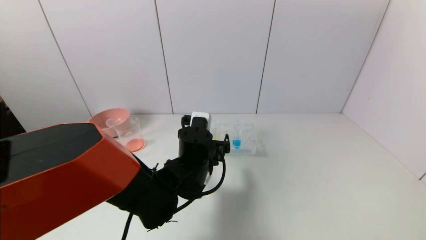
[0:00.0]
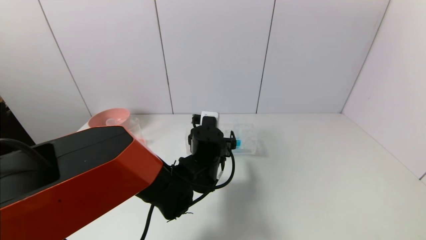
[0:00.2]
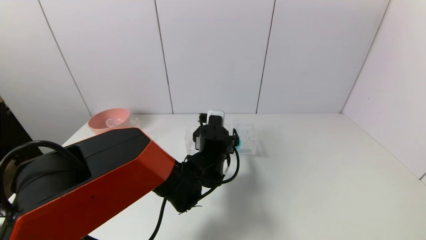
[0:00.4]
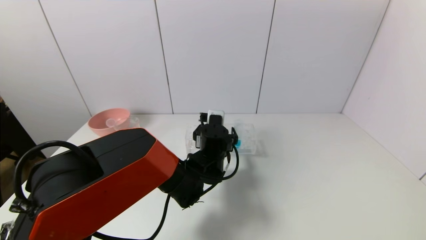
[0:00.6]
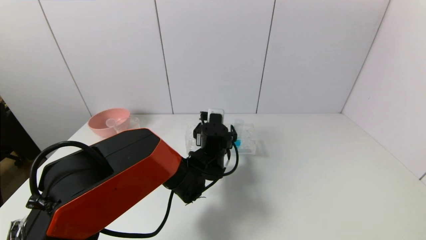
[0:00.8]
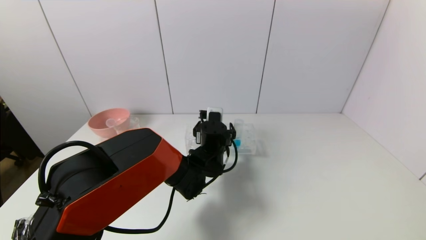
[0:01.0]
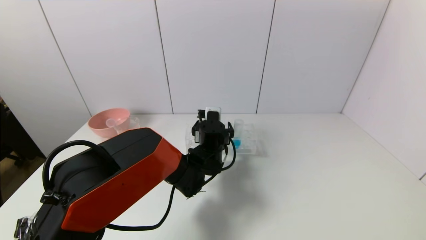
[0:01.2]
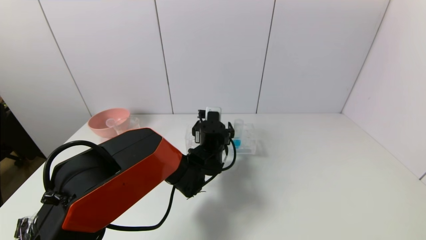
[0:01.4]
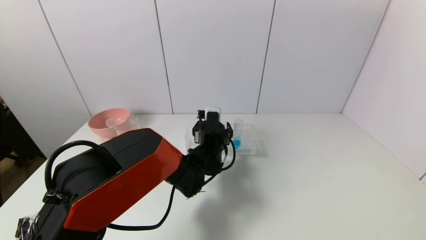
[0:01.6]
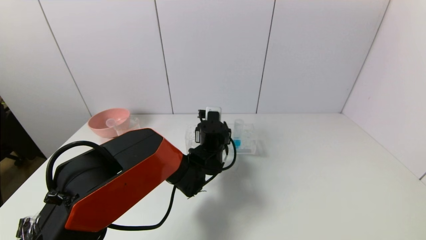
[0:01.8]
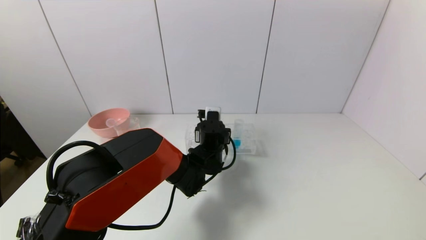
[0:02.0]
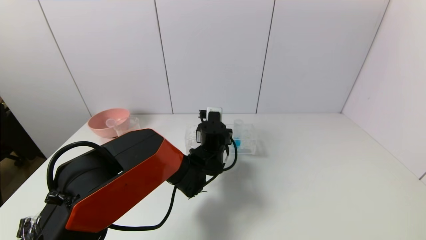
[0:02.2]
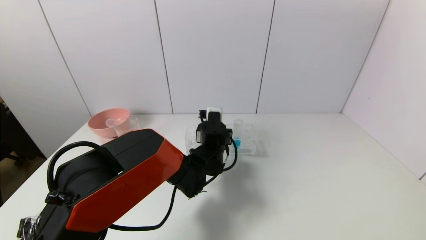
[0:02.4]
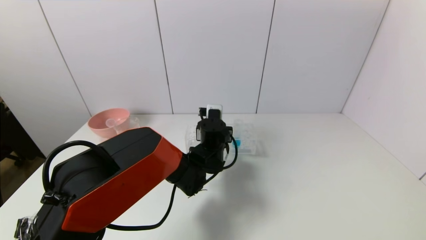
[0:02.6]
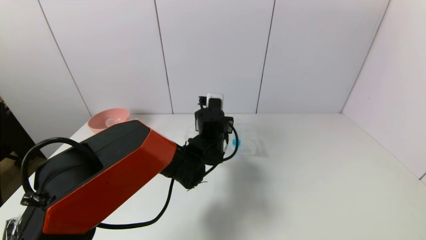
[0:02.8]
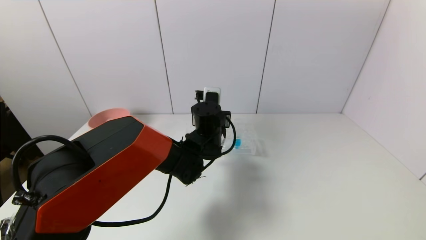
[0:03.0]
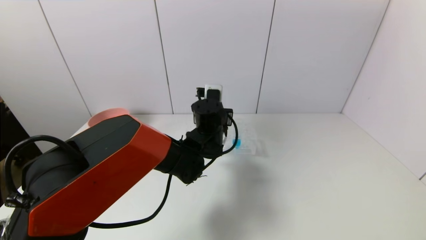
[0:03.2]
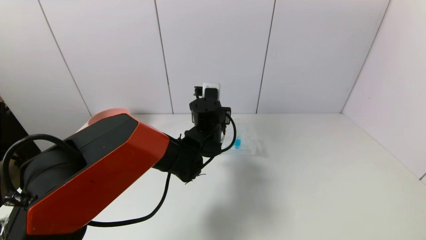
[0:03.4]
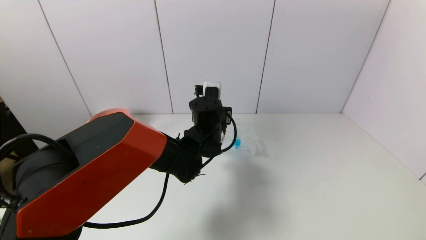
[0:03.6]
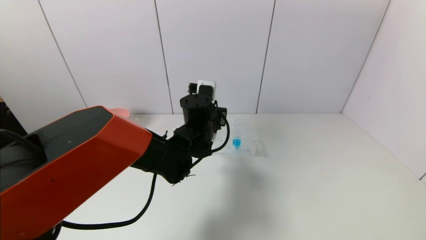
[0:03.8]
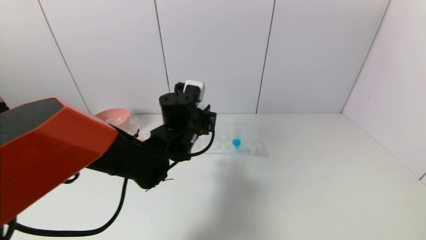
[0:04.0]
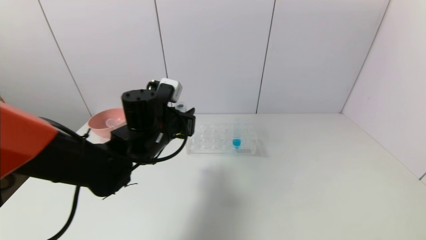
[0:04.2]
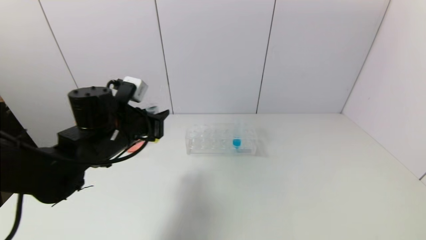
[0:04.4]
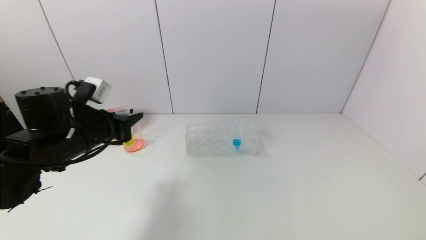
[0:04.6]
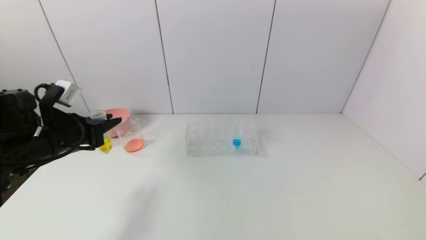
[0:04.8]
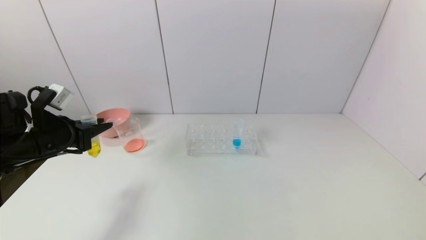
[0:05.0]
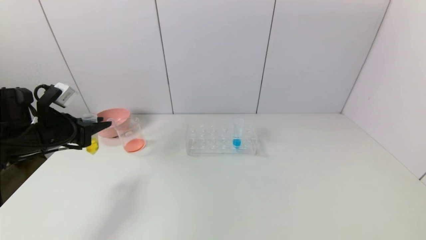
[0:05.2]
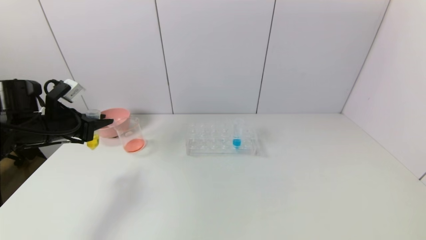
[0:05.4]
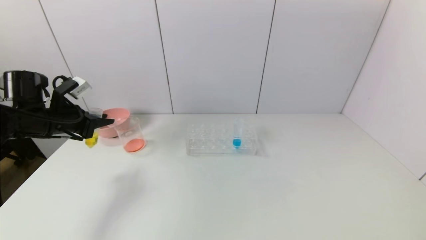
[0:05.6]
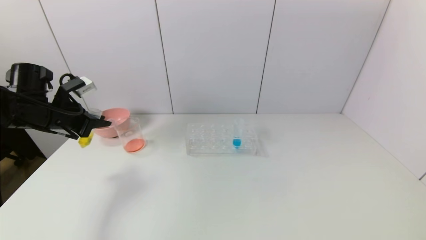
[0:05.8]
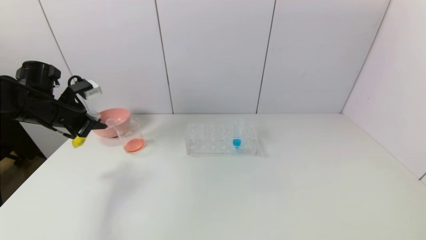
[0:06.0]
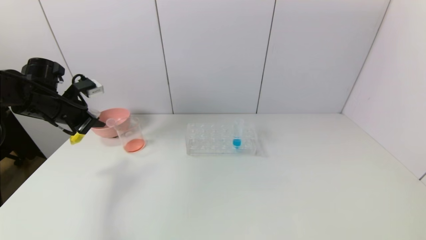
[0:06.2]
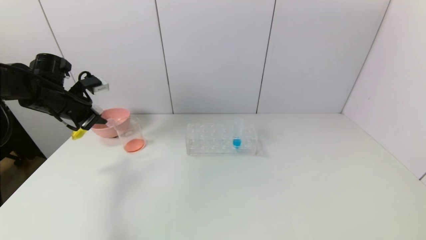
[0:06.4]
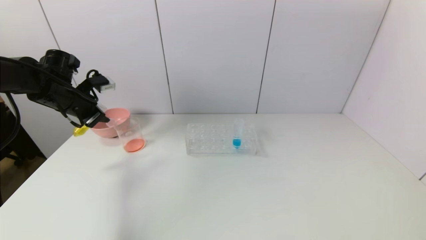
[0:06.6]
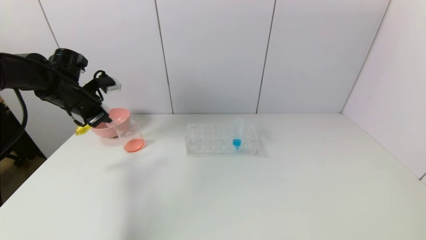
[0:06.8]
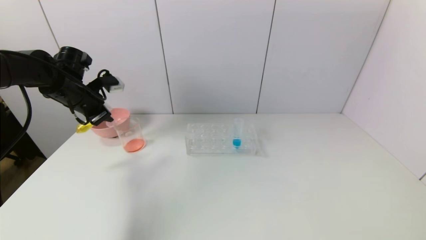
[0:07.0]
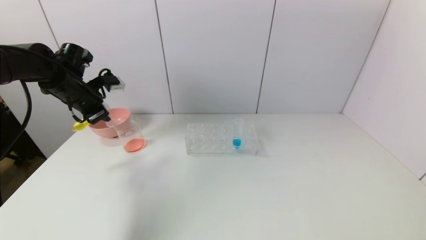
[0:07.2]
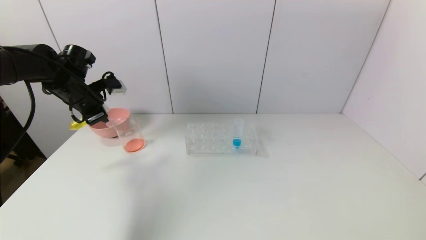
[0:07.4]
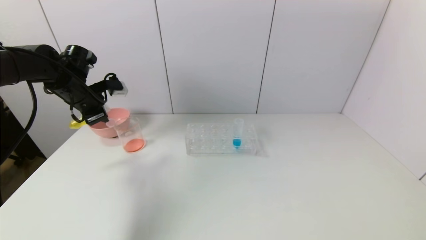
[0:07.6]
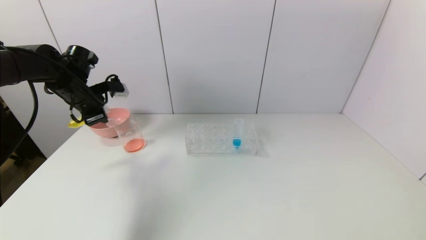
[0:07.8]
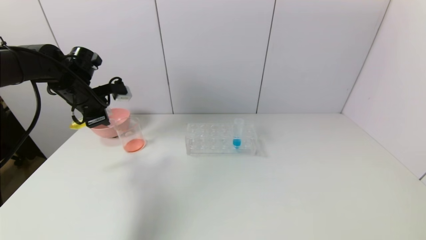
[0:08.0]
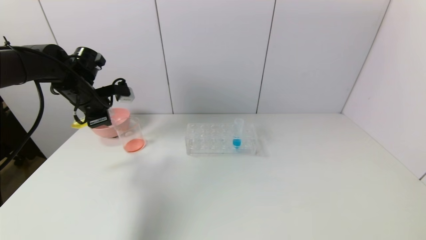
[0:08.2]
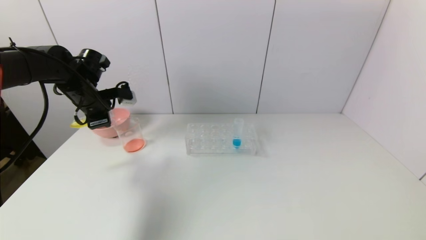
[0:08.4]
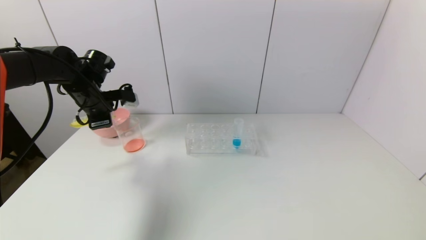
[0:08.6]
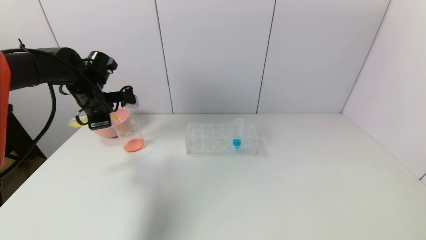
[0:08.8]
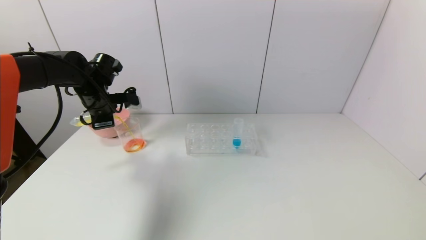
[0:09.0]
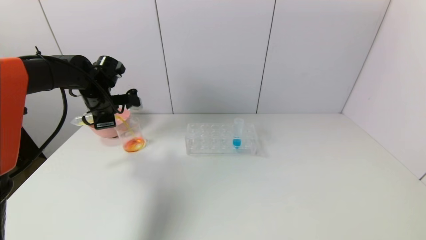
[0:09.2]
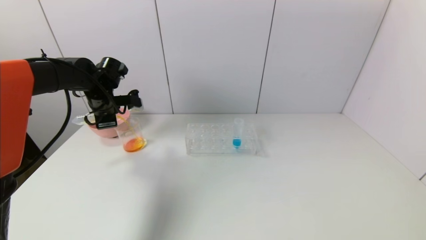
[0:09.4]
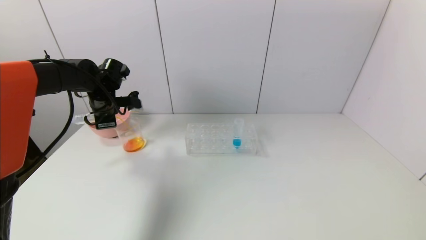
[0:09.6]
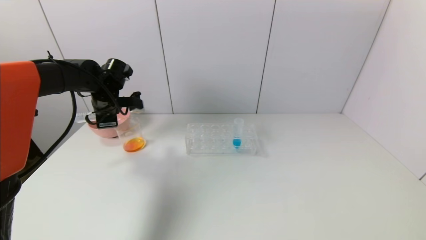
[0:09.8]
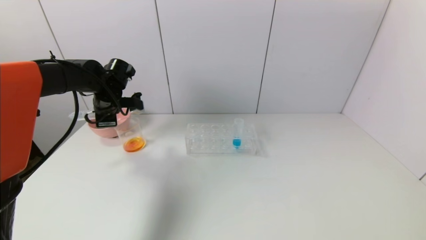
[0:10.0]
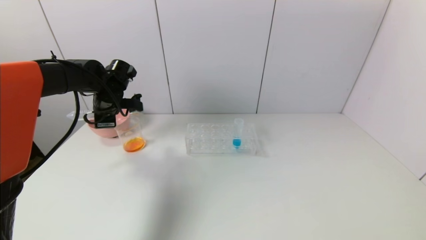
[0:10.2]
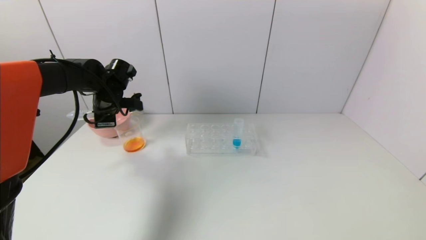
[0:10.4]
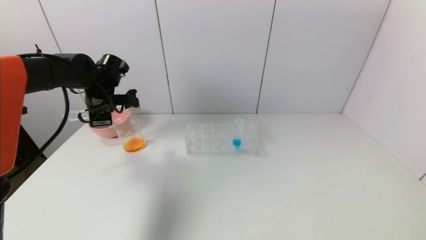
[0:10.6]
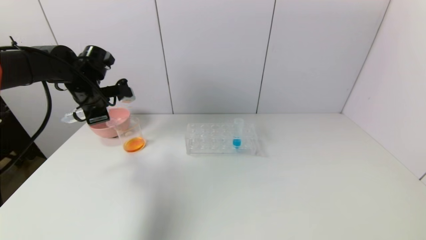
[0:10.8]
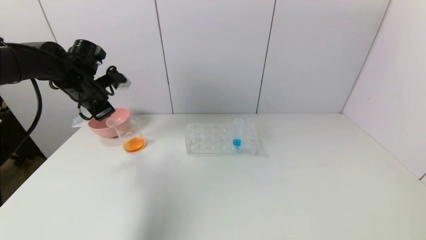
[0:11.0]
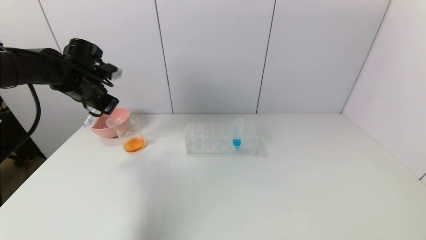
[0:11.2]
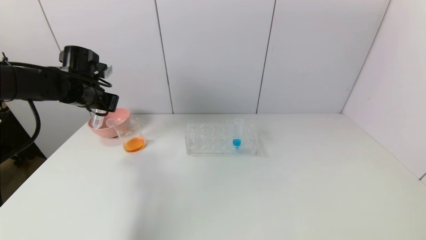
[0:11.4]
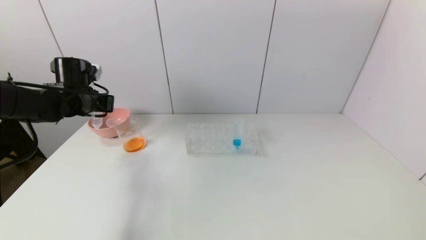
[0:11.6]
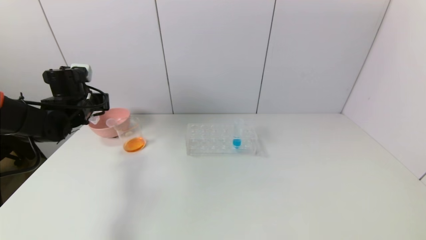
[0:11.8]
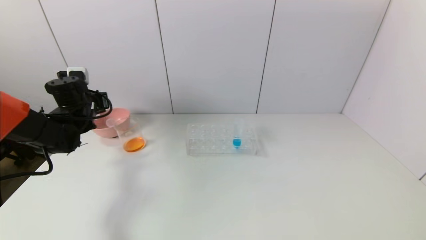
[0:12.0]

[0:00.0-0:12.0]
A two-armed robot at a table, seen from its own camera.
Task of the whole recording: pick up the test tube with yellow pigment and the test tube with red pigment by grippers and pour them into the beaker.
Step, 0:00.0 to 0:02.2: Grasp the yellow reagent with the left gripper.
Step, 0:02.4 to 0:10.2: Pour the yellow reagent into the graduated cylinder with the left gripper.
0:00.0 to 0:01.6: The left gripper moves forward, some 10 cm.
0:01.6 to 0:03.0: The left gripper travels upward by some 5 cm, and closes.
0:03.0 to 0:04.4: The left gripper goes some 20 cm to the left and backward.
0:04.4 to 0:06.0: The left gripper shifts about 20 cm to the left and forward.
0:06.0 to 0:07.6: The left gripper moves about 5 cm.
0:07.6 to 0:09.0: There are only small adjustments of the grippers.
0:09.0 to 0:10.4: The grippers move only a little.
0:10.4 to 0:12.0: The left gripper heads to the left, covering approximately 5 cm.

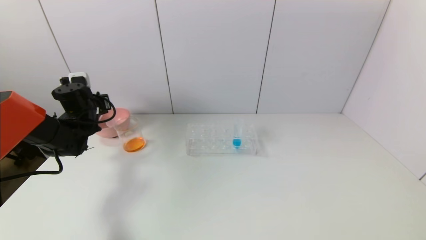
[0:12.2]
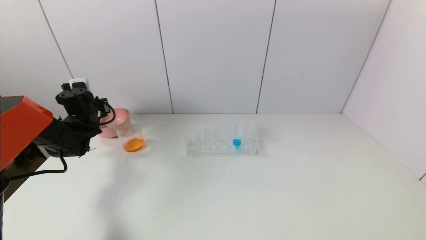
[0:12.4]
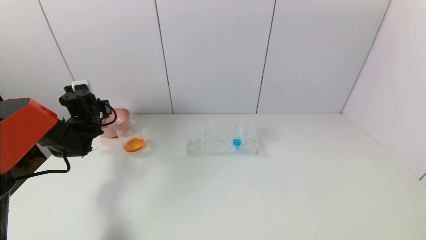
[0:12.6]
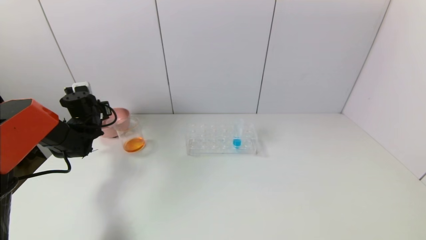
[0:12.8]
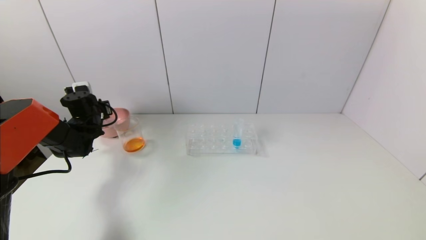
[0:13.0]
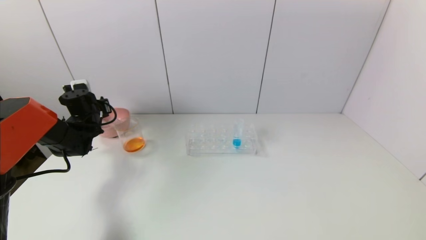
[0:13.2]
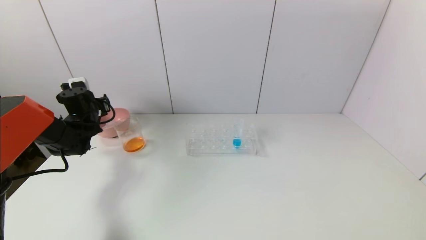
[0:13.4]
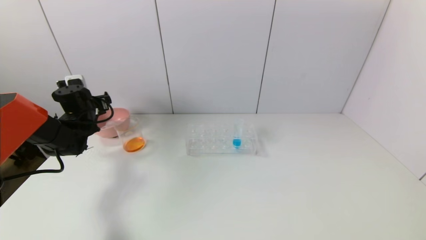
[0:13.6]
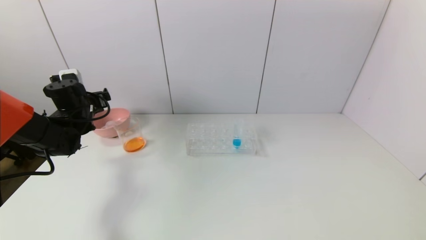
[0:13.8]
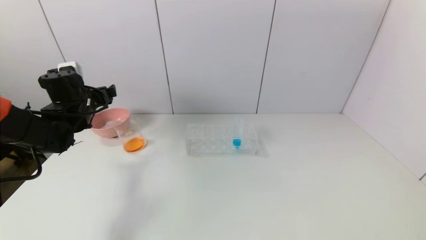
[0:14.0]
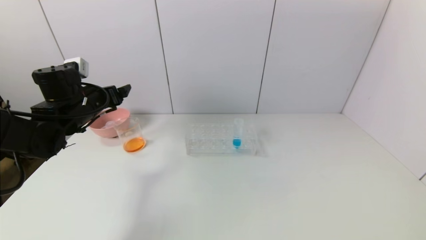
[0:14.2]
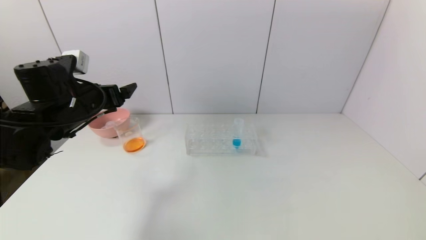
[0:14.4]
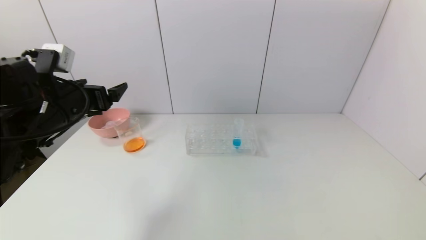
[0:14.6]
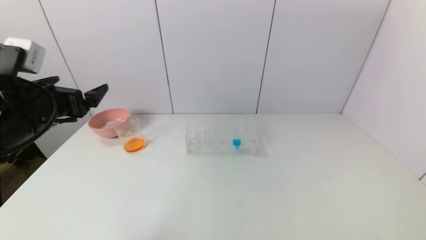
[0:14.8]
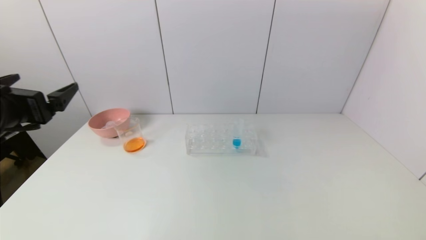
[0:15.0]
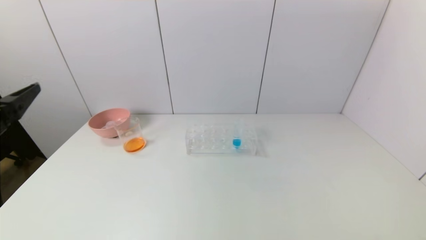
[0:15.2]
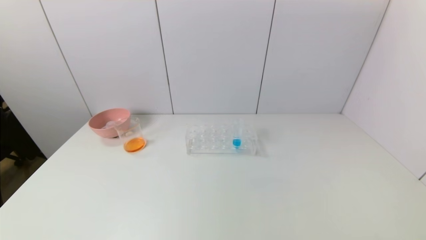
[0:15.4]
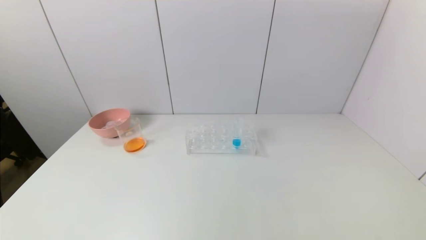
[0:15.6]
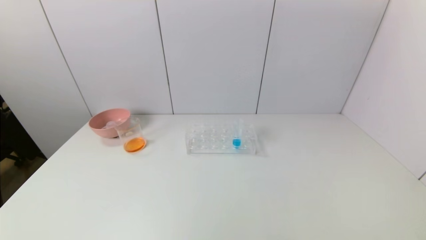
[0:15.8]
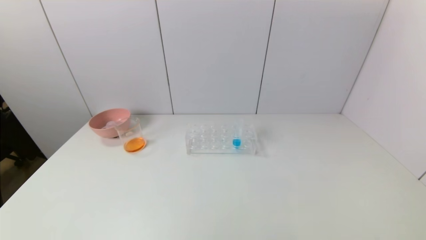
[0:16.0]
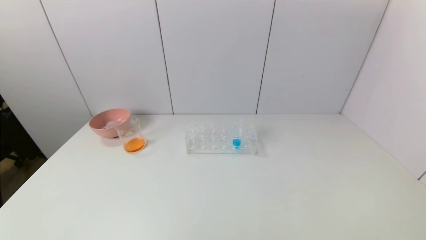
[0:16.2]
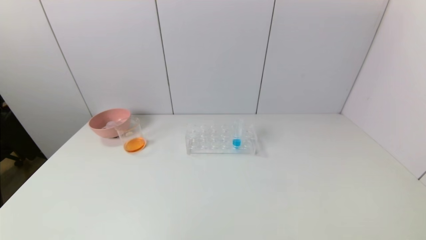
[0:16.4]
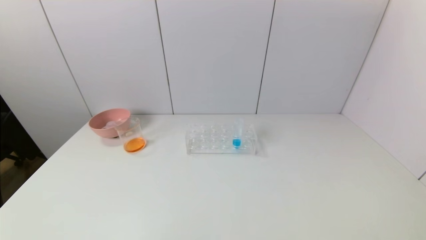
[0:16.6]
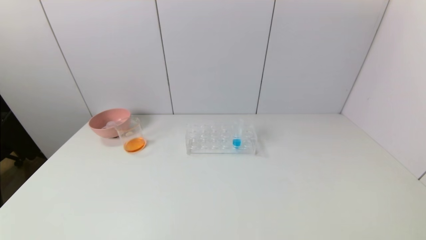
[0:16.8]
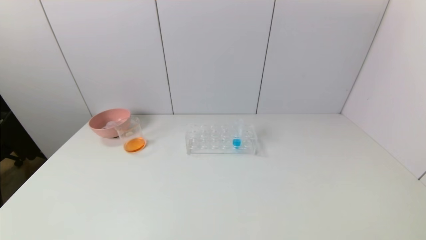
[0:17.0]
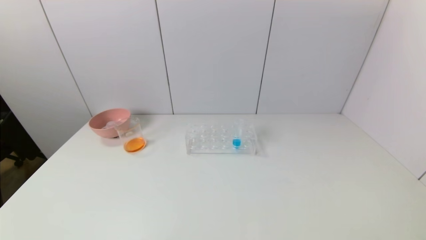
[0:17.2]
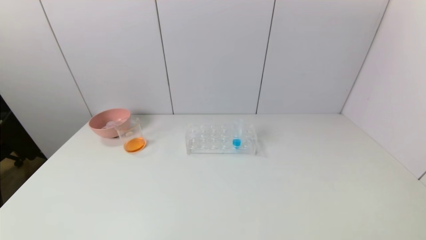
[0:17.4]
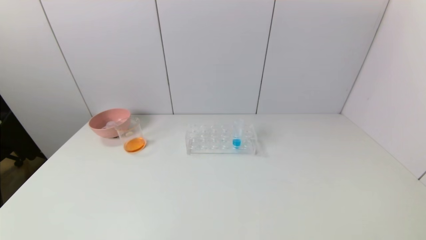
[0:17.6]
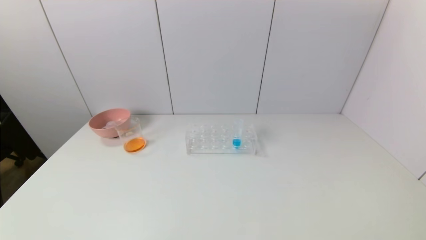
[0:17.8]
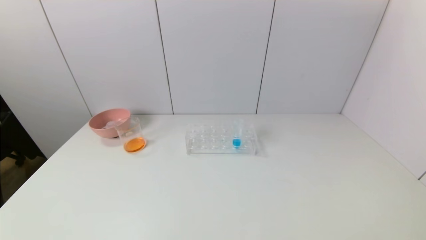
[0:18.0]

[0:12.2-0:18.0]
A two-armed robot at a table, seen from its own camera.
Task of the whole recording: pick up the test tube with yellow pigment and the test tube with red pigment by grippers and pour them into the beaker.
0:12.2 to 0:13.6: The left gripper opens up.
0:13.6 to 0:15.0: The left gripper travels backward and upward by roughly 30 cm.
0:15.0 to 0:16.6: The left gripper moves backward and downward, about 25 cm.
